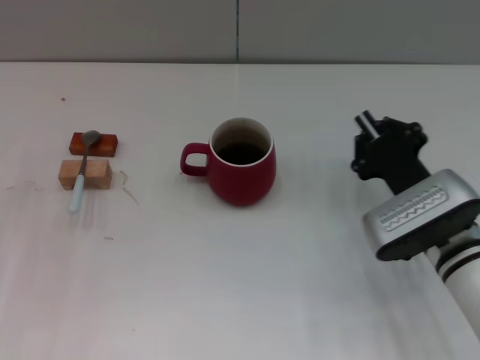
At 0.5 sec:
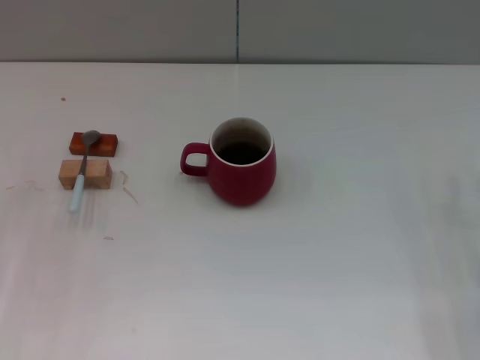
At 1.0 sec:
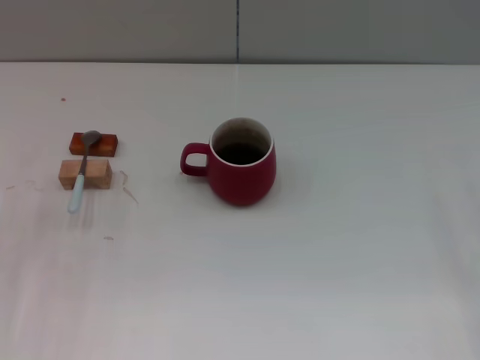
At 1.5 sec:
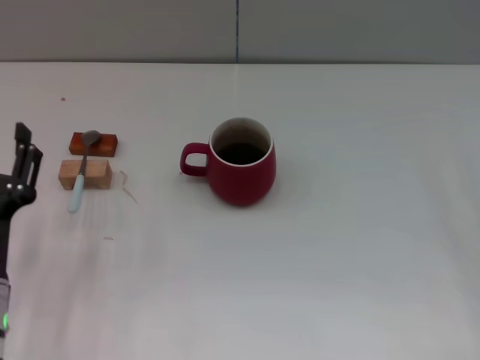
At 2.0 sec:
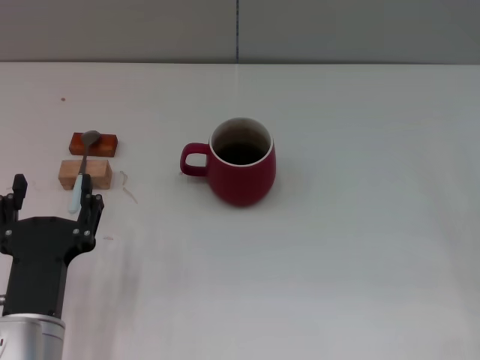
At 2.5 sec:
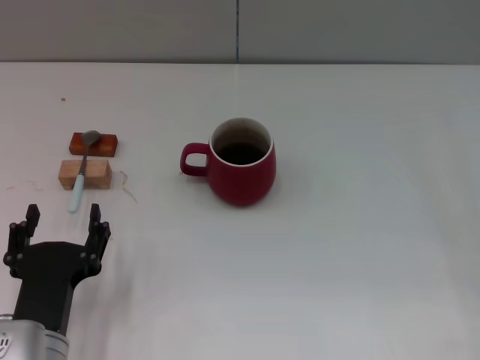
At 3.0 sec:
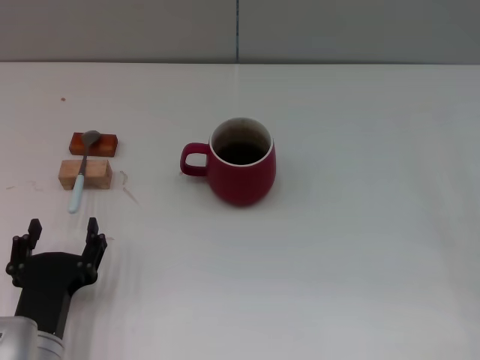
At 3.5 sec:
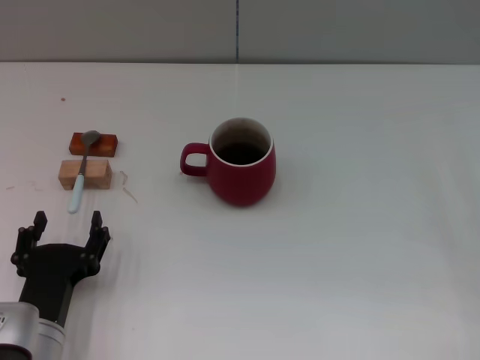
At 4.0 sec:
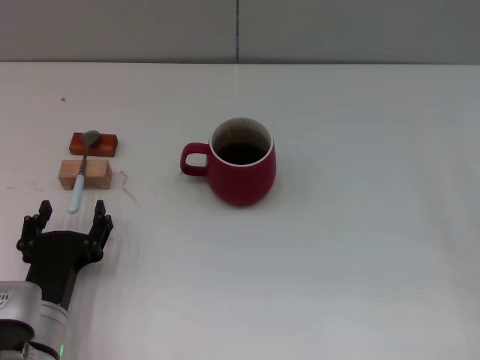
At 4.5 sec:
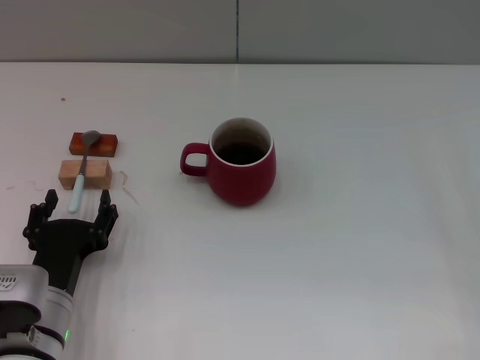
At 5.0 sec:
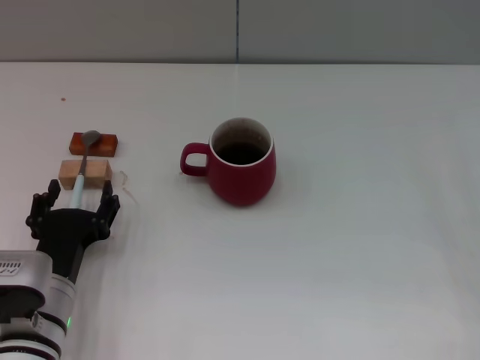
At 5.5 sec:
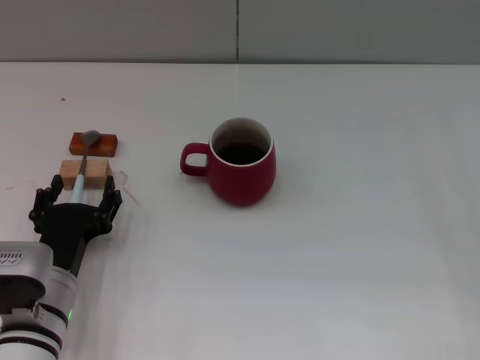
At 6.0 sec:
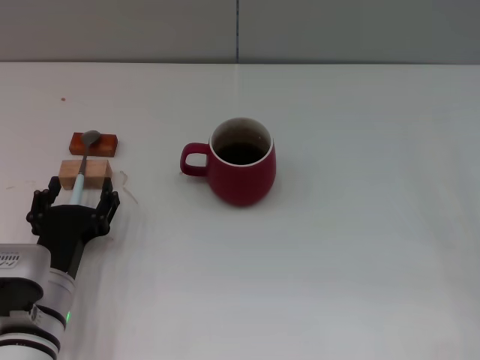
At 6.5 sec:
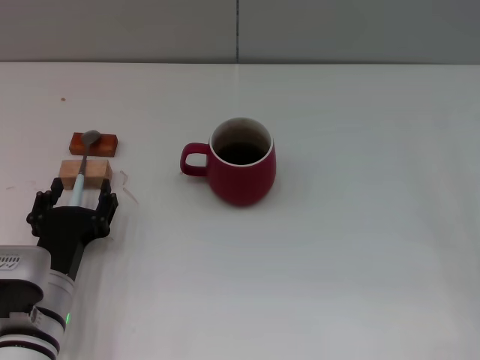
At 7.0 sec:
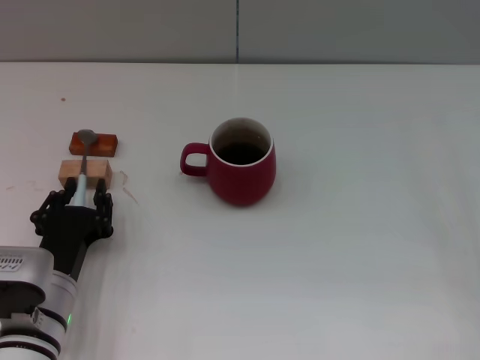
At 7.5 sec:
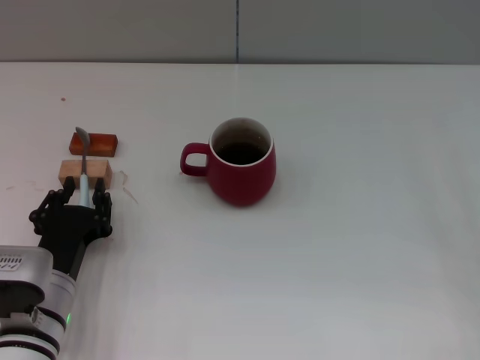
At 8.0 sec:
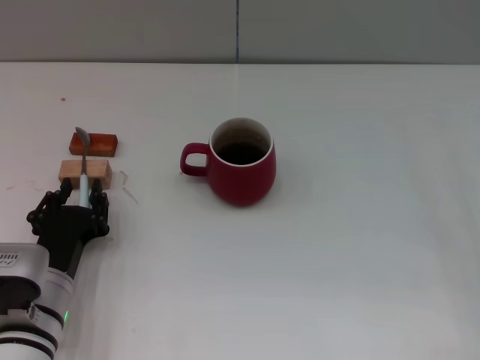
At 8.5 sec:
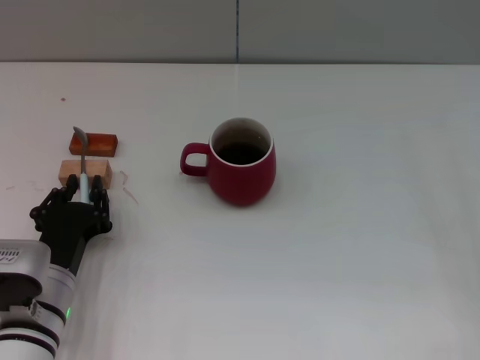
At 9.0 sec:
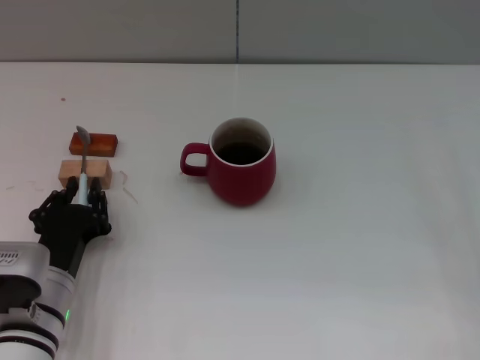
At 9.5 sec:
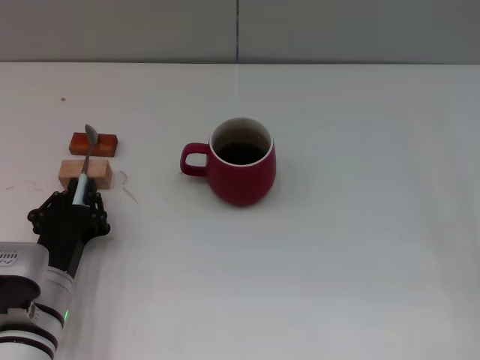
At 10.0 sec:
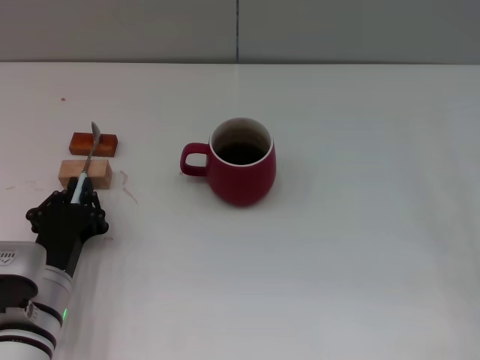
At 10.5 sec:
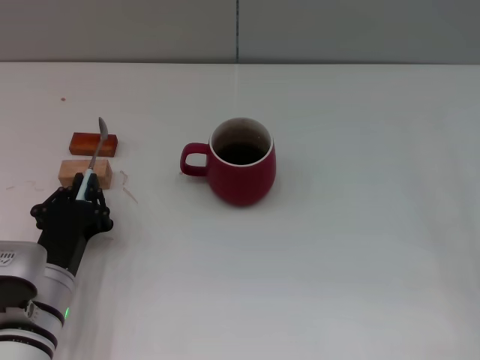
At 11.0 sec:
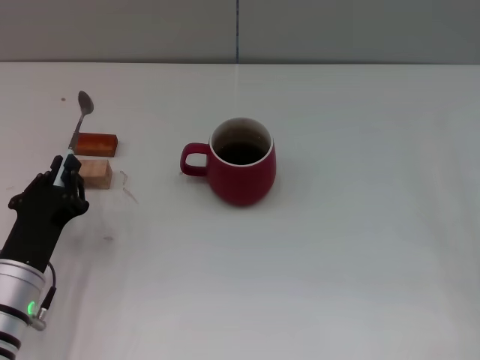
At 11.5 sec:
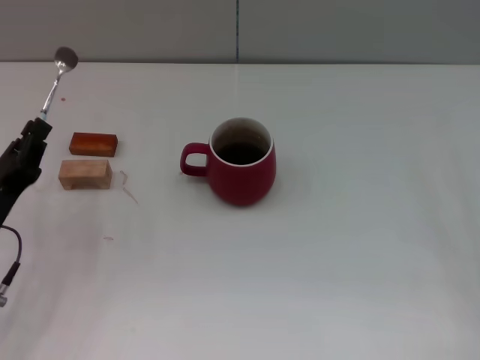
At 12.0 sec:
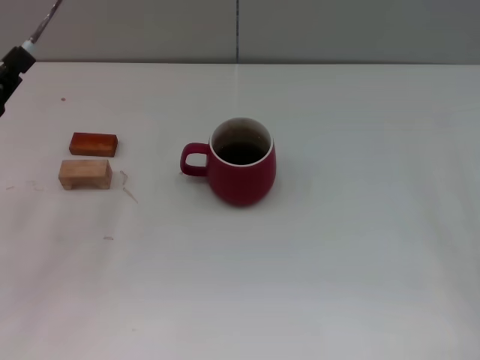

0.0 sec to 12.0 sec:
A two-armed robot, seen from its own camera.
Task of the whole recording: Move the red cup to the center, lift the blue spoon, stir it three times in the cup, and put the spoon into the cup.
0.0 sec to 2.0 sec: The left gripper travels to the right and backward by some 20 cm, while the right gripper travels to the right by some 20 cm, and opens.
2.0 sec to 4.0 sec: The left gripper changes place by roughly 5 cm.
4.0 sec to 6.0 sec: The grippers make only small movements.
6.0 sec to 8.0 sec: The left gripper closes its fingers.
8.0 sec to 10.0 sec: The left gripper closes up.
10.0 sec to 12.0 sec: The left gripper heads to the left, upward and forward, covering roughly 15 cm.

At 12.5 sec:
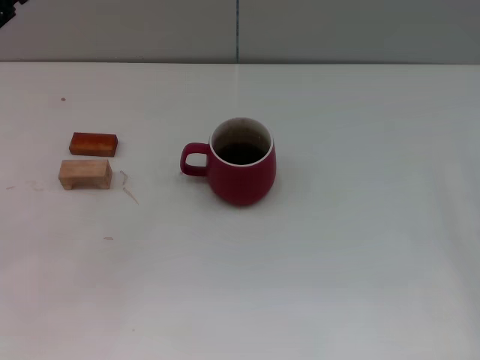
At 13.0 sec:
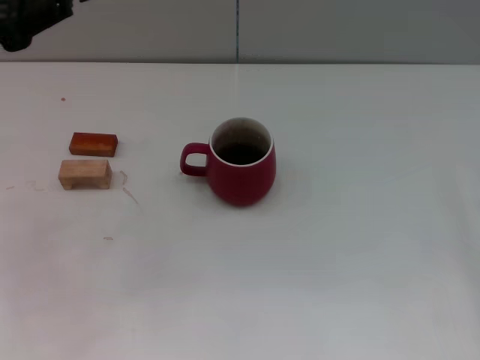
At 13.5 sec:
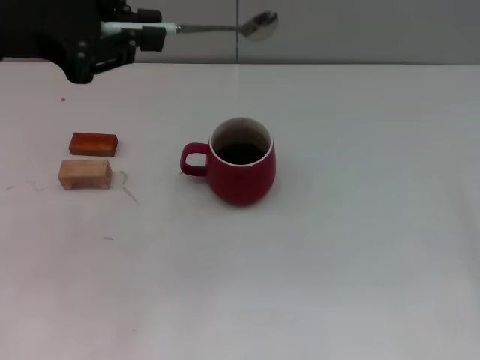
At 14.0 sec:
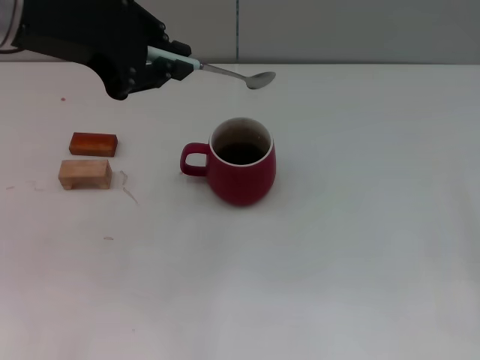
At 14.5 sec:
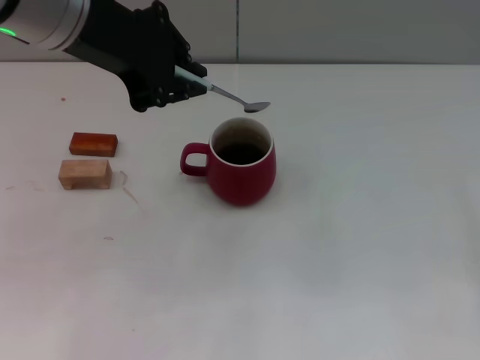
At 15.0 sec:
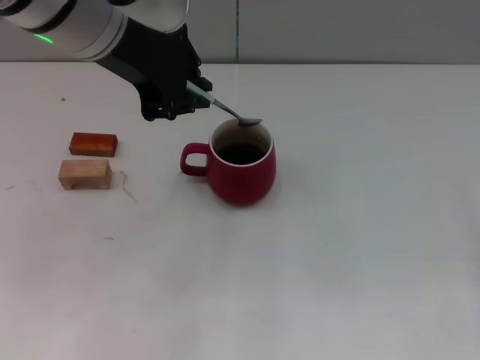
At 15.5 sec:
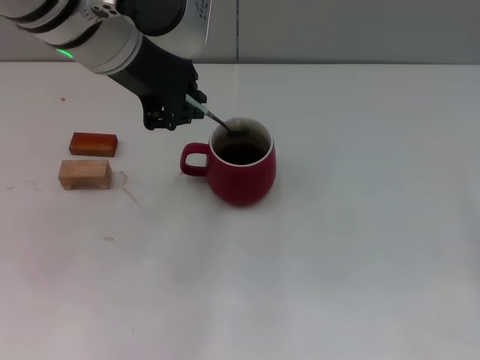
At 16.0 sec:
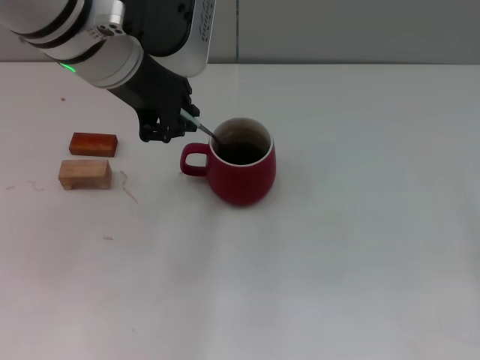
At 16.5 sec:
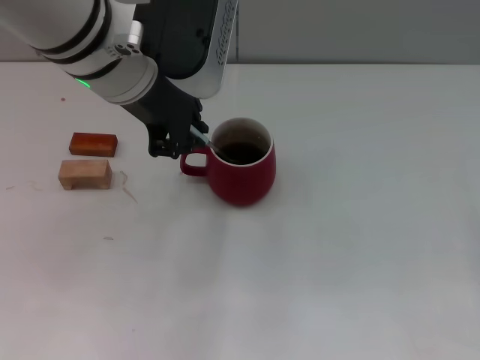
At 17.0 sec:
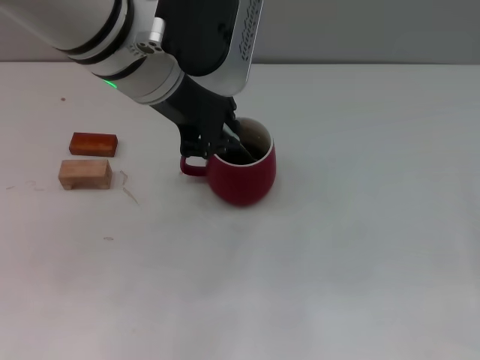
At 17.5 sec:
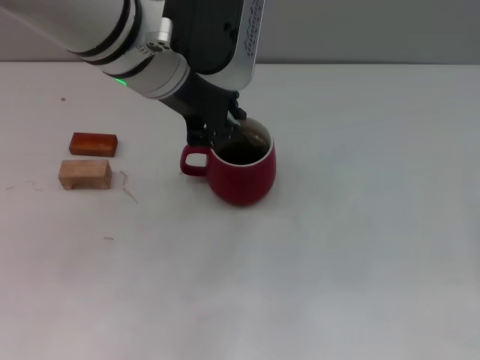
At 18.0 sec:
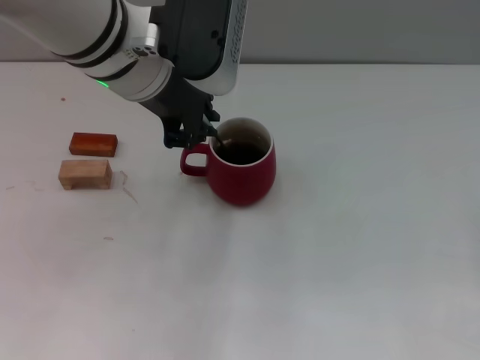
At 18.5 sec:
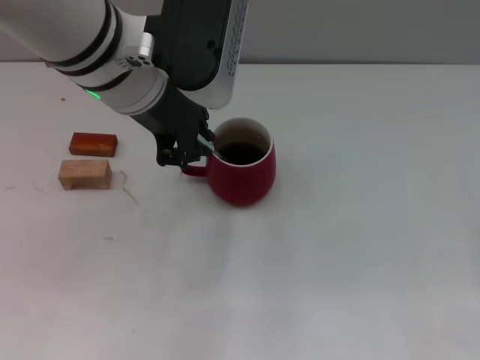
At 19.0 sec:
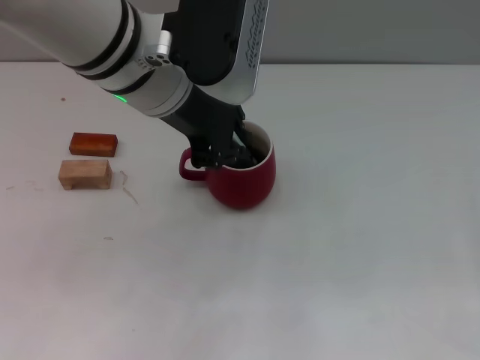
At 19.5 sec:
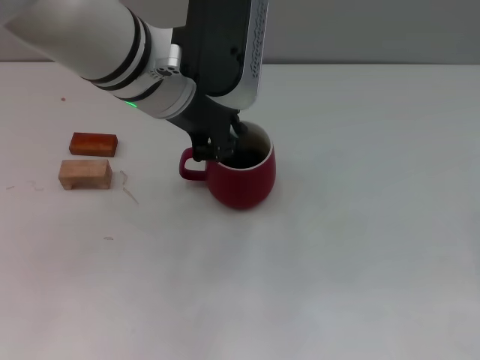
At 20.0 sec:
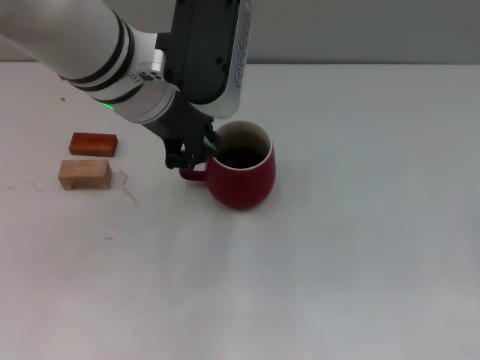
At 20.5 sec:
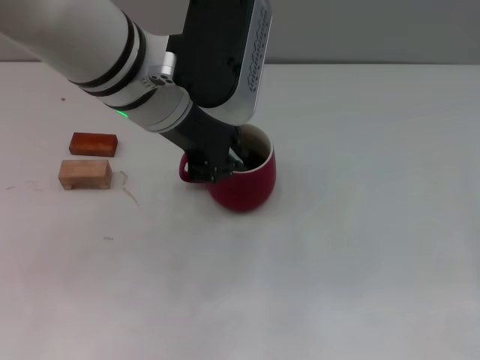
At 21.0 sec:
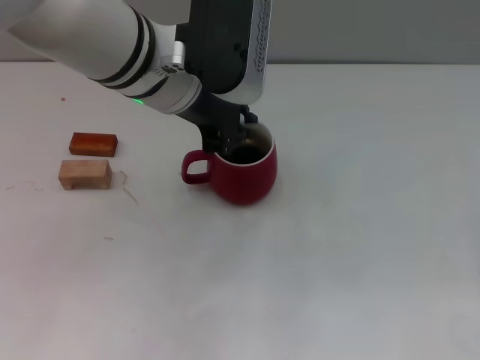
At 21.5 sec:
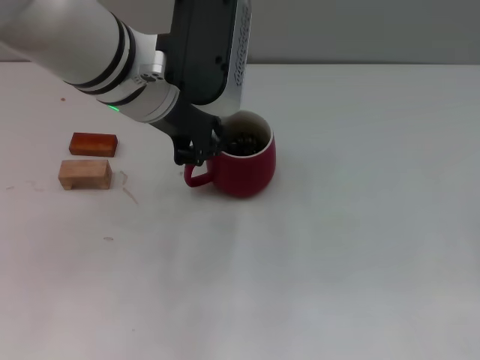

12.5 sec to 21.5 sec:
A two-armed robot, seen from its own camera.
Task of the whole recording: Move the red cup to the center, lift the blue spoon, stir it three times in the cup, and put the spoon into the cup.
12.5 sec to 14.5 sec: The left gripper travels to the right and upward by some 20 cm.
14.5 sec to 17.0 sec: The left gripper goes roughly 5 cm to the right.
17.0 sec to 21.5 sec: The grippers make only small movements.

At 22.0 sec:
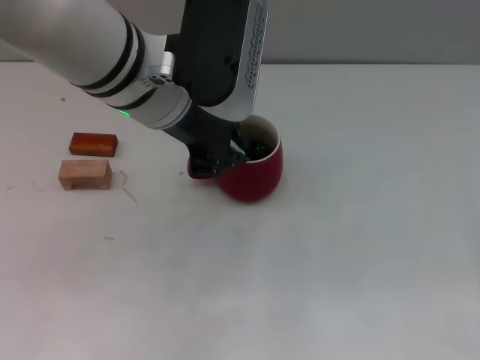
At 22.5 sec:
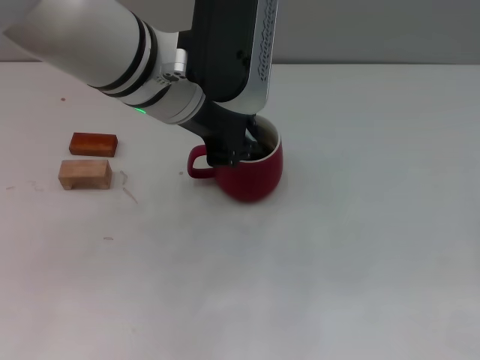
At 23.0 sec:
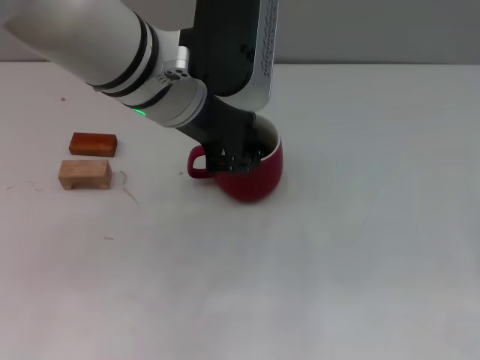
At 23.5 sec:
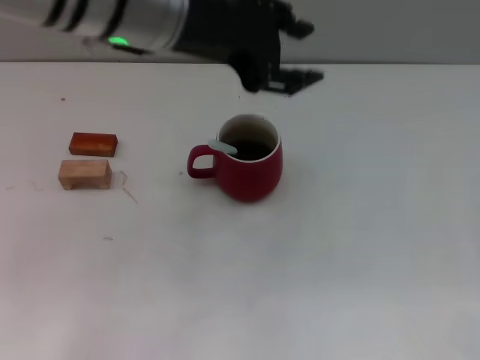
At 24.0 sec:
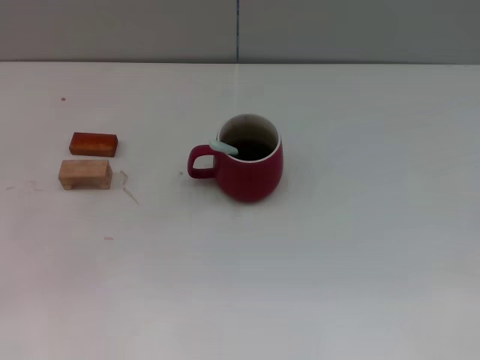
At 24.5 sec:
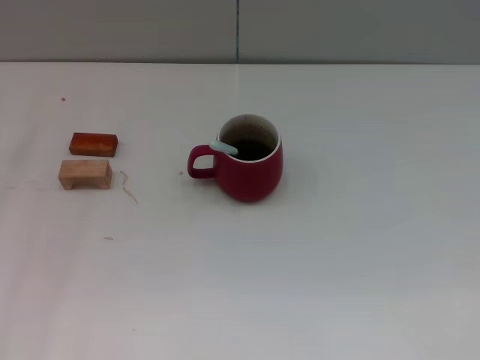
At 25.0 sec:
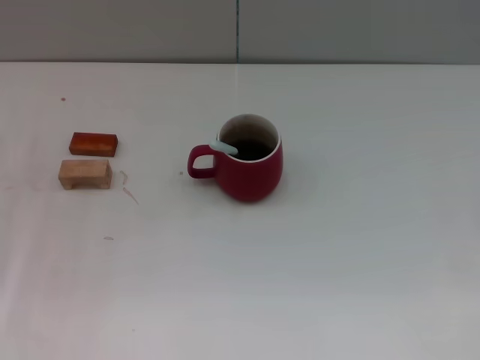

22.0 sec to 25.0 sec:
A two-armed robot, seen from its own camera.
Task of the whole recording: Move the red cup to the center, lift the blue spoon, stir it three times in the cup, and put the spoon into the cup.
22.0 sec to 23.5 sec: The left gripper goes approximately 5 cm upward, and opens.
23.5 sec to 25.0 sec: The left gripper is displaced to the left and downward by some 30 cm.
